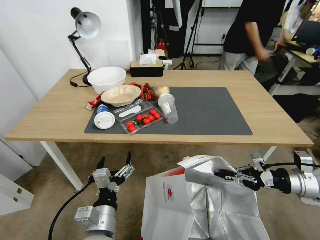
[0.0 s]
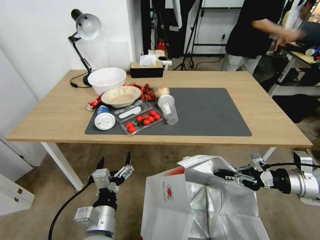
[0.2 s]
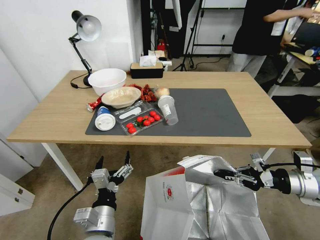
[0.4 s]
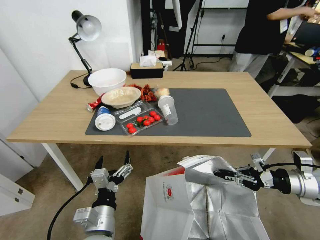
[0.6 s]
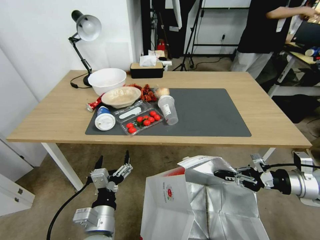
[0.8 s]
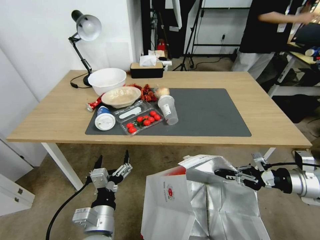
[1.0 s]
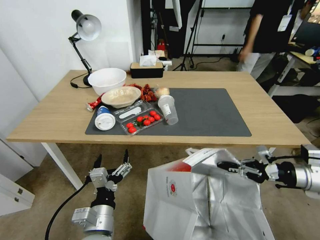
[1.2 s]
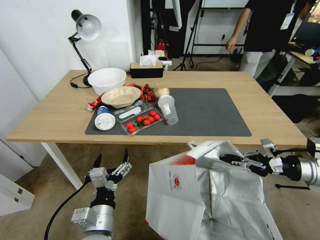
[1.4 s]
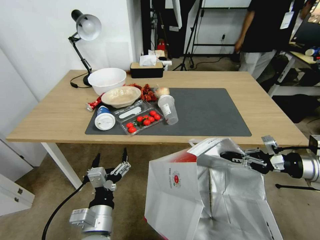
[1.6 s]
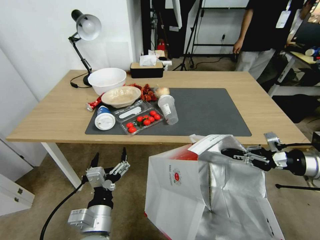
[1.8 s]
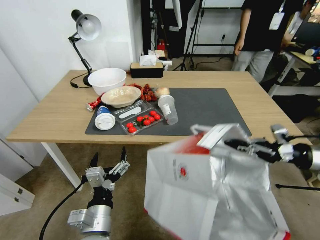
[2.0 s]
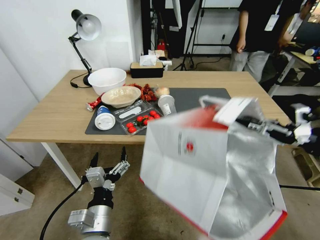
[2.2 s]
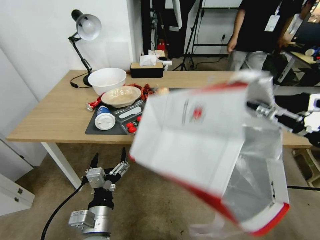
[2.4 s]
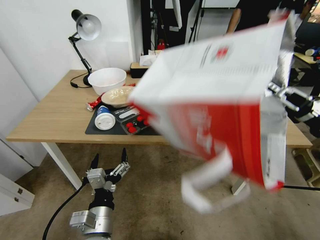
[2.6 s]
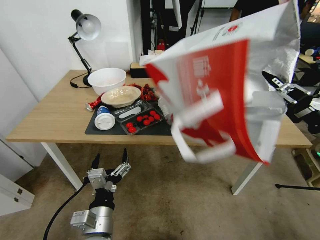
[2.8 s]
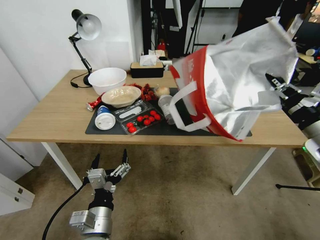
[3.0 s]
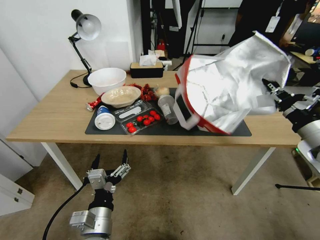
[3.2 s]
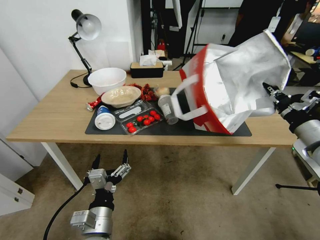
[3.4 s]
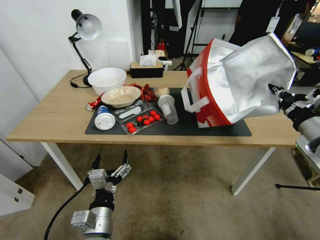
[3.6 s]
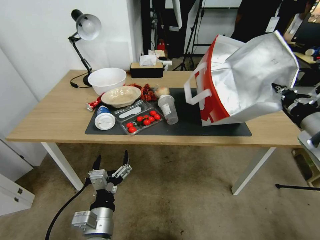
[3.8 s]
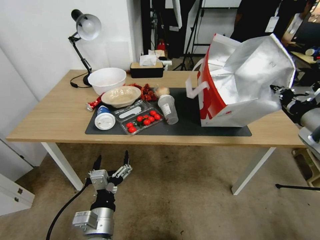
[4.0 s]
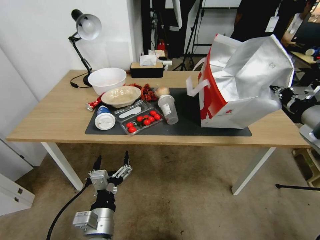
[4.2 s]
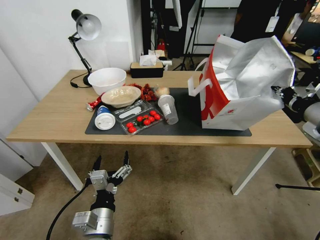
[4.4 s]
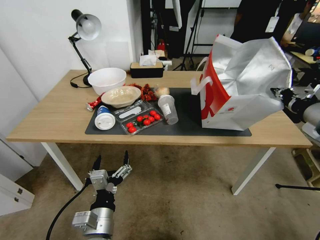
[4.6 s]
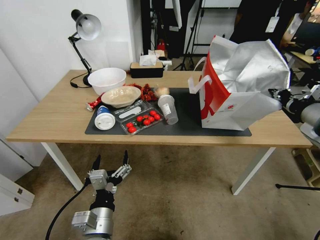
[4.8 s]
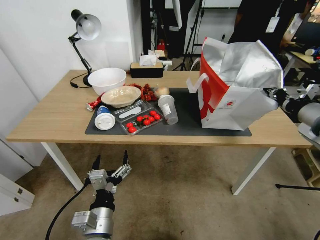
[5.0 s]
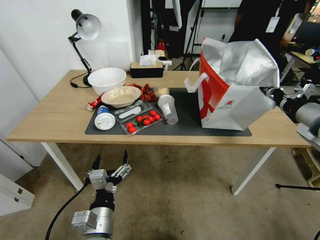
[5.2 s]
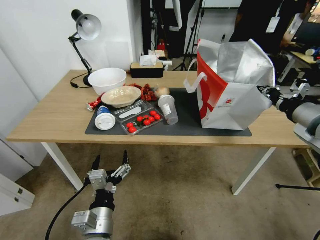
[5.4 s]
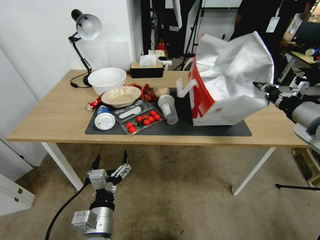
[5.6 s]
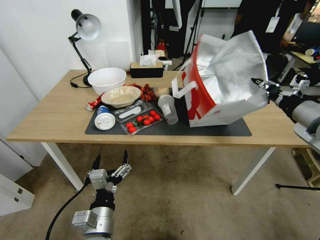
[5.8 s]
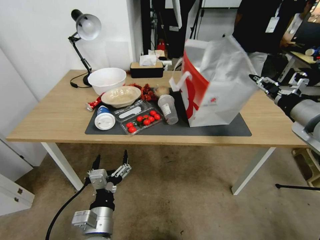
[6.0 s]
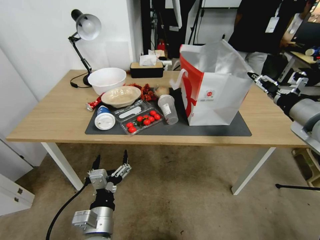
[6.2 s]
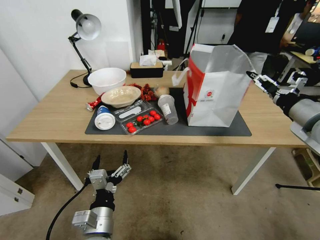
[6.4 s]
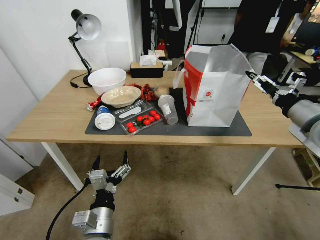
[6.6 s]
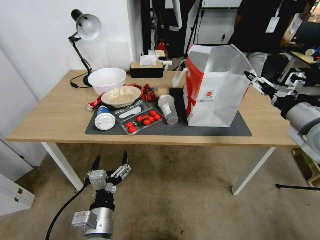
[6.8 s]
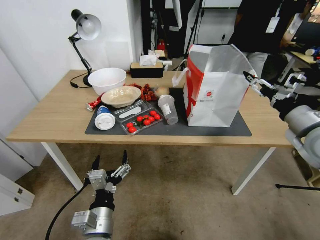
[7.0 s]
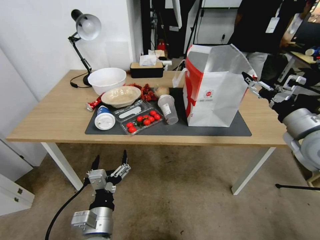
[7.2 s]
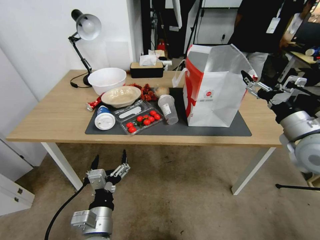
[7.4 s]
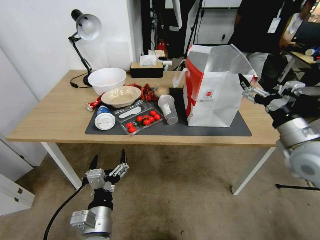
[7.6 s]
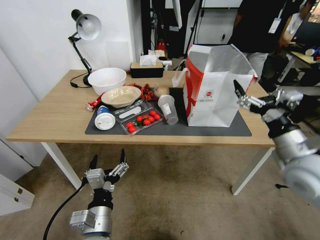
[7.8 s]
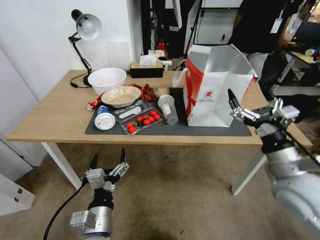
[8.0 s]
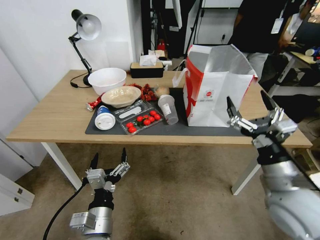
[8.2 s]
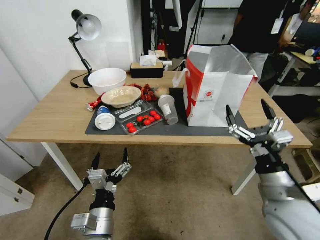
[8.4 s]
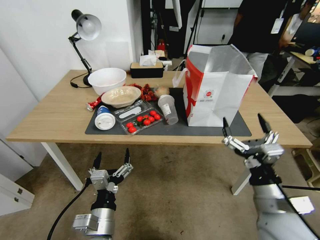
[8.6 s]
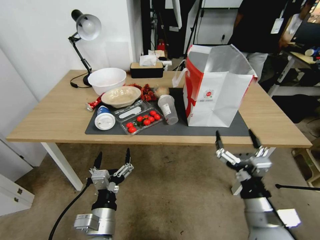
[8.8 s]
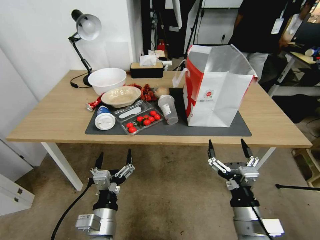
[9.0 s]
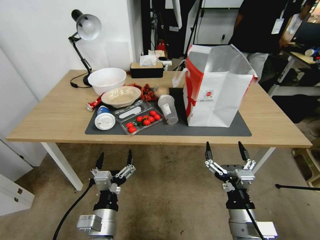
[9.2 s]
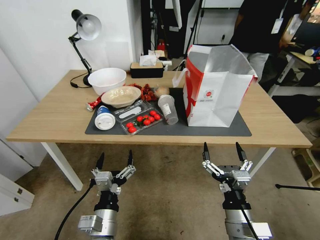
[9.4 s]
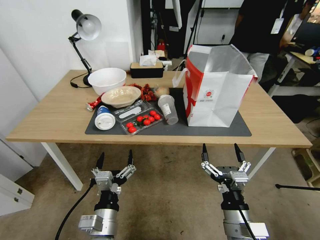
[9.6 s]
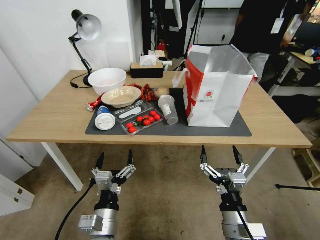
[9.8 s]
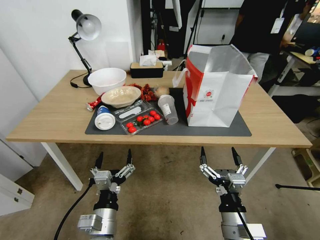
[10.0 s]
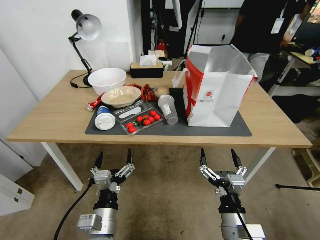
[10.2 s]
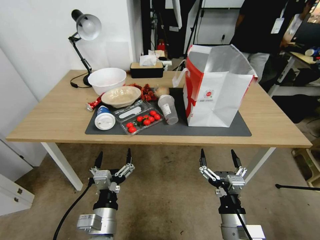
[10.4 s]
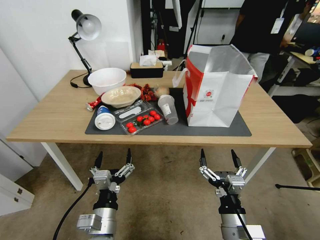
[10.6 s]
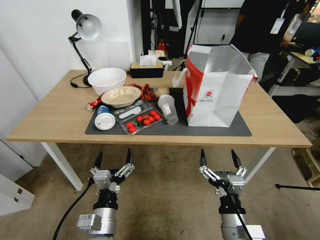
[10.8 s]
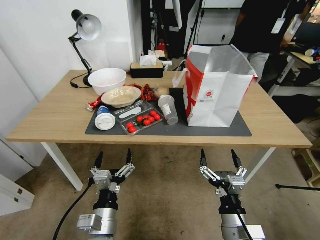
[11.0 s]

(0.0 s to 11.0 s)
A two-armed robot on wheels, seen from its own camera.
Task of the whole recording: Pick up the food delivery bag from the floor and place it on the table.
1.6 s - 3.2 s: The right gripper goes some 10 cm upward and to the left.
3.2 s - 4.8 s: The right gripper goes approximately 5 cm upward.
4.8 s - 6.2 s: The right gripper opens.
6.2 s - 7.8 s: The right gripper travels downward and backward by about 10 cm.
7.8 s - 9.4 s: The right gripper is displaced to the left, downward and backward by about 25 cm.
9.4 s - 11.0 s: The grippers move only a little.

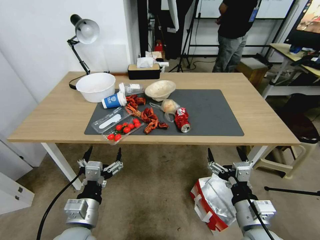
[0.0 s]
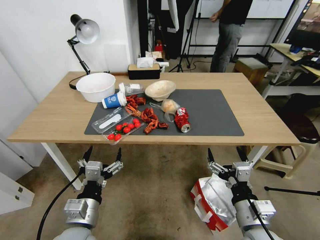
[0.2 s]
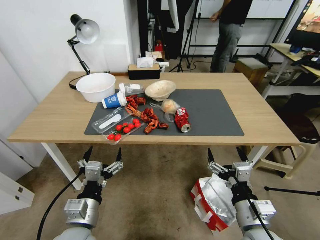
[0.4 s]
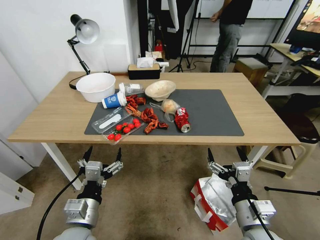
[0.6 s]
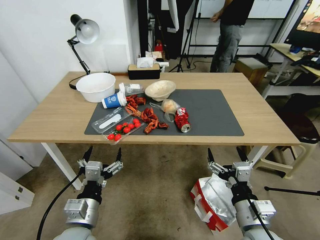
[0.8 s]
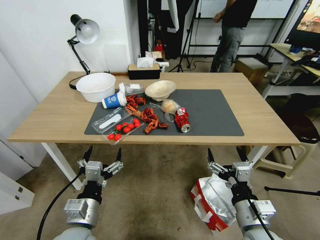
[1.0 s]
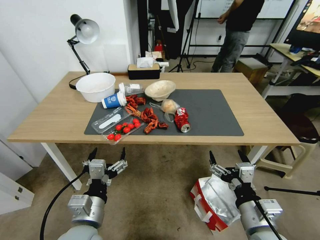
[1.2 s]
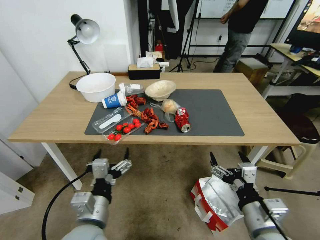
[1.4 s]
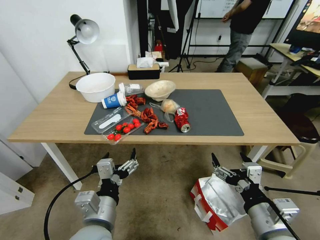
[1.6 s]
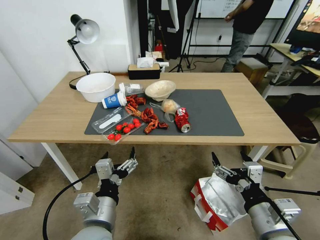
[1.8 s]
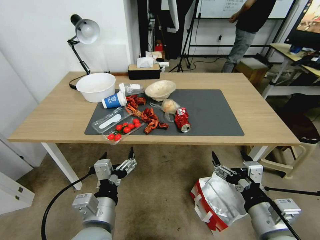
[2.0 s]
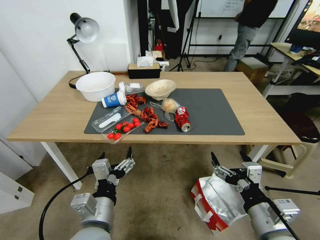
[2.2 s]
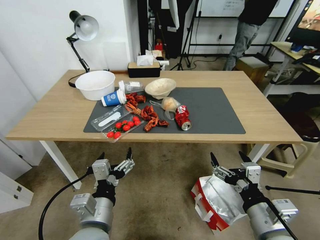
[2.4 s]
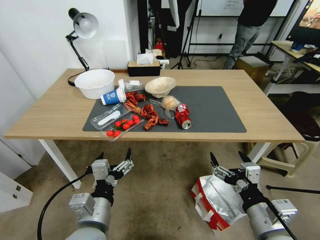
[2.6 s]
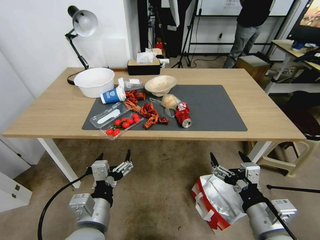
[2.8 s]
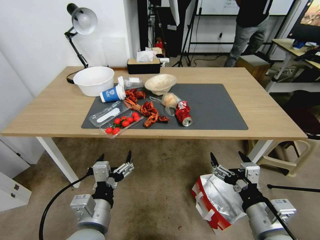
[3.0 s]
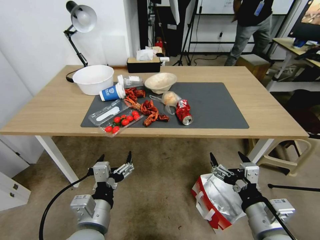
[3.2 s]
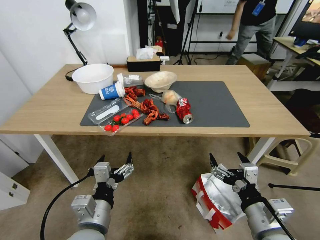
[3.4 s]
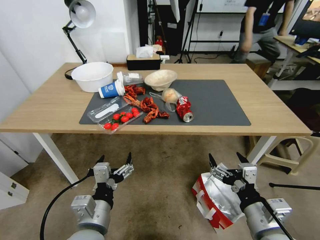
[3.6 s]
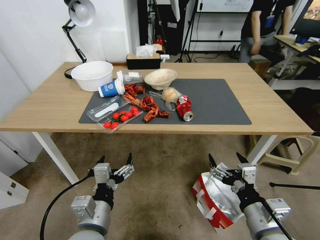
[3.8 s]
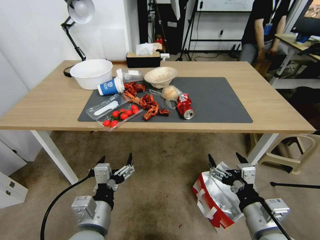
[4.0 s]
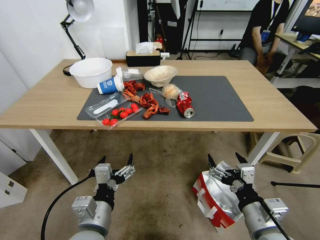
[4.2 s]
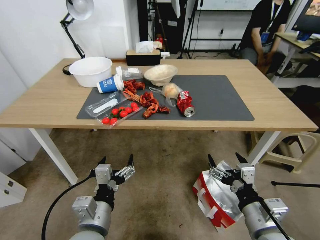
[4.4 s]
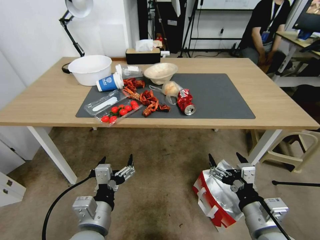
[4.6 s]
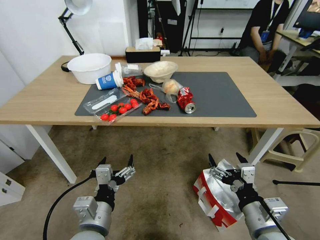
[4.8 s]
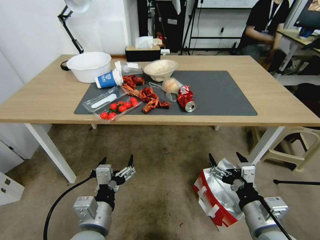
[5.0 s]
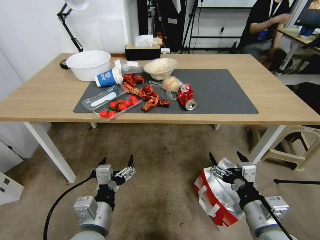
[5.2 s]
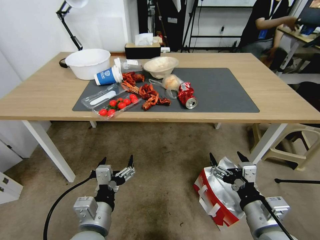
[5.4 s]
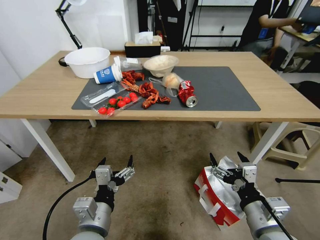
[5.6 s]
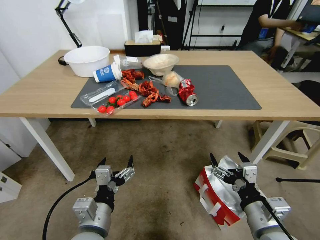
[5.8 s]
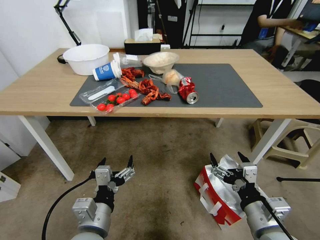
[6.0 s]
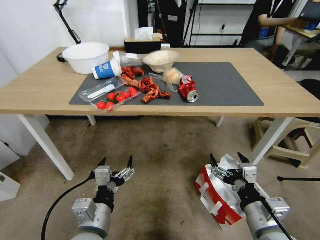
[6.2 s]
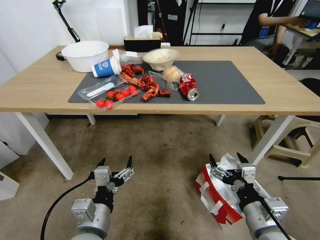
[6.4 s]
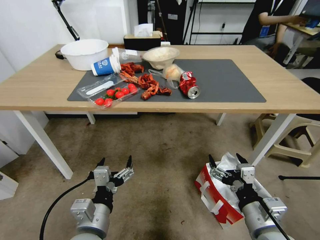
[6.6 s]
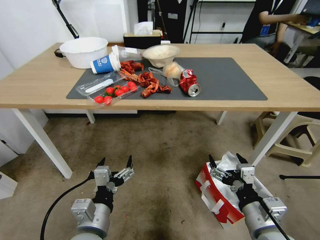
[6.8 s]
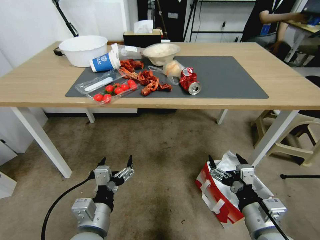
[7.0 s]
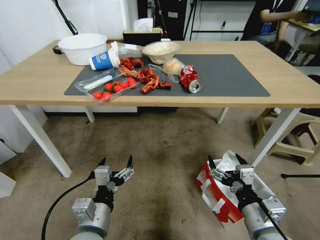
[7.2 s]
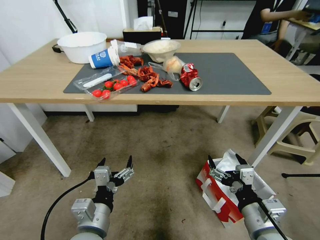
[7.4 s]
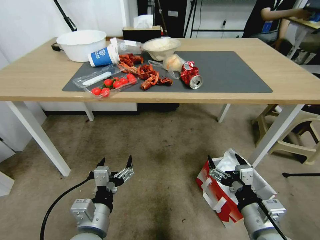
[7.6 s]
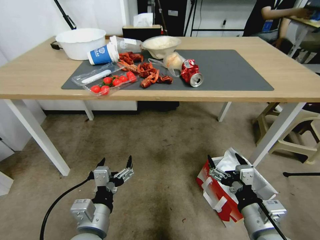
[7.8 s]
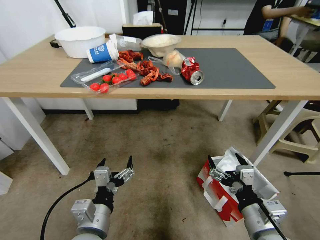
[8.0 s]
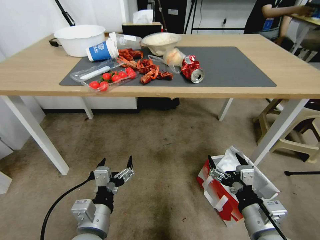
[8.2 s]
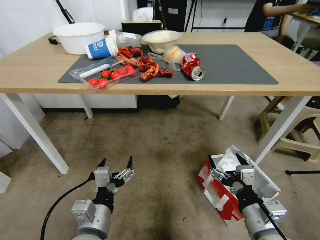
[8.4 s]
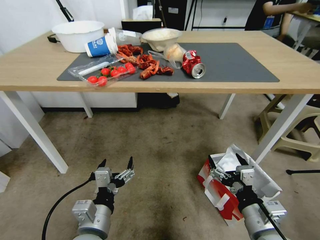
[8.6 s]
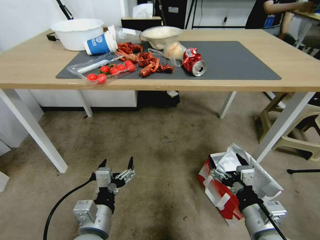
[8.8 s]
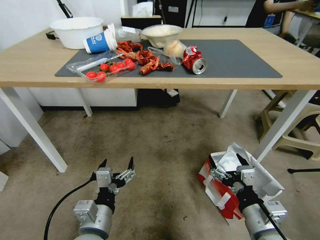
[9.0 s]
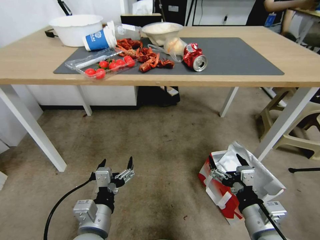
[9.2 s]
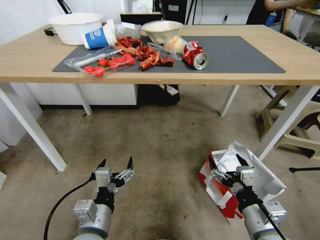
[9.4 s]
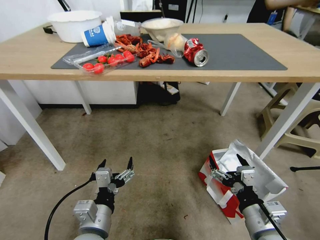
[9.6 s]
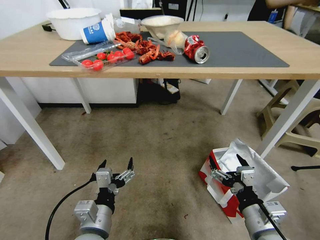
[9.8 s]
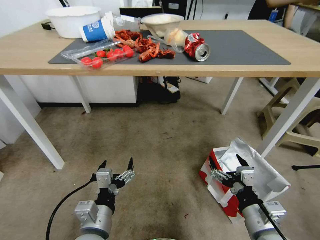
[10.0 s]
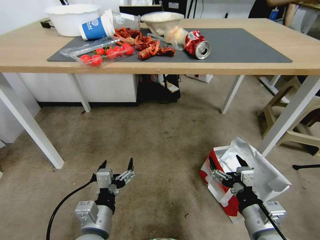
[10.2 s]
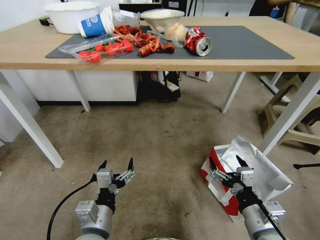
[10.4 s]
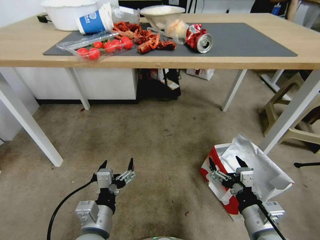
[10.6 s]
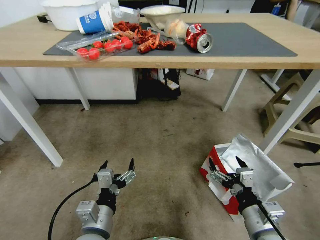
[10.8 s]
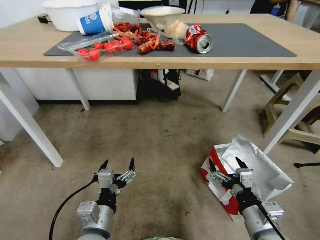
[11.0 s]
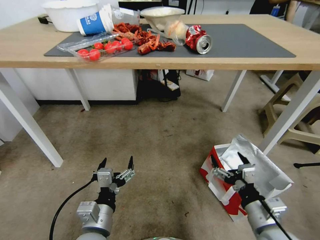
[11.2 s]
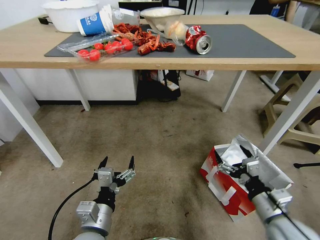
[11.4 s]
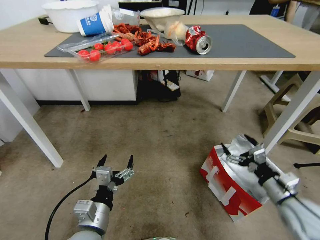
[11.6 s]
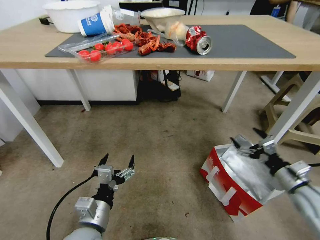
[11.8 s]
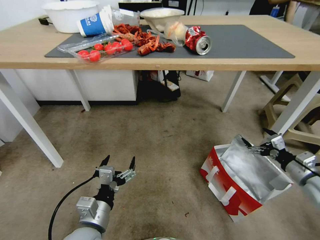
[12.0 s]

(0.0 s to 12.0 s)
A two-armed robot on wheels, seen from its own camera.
Task of the whole recording: Pick up the food delivery bag from the floor and place it on the table.
10.4 s - 12.0 s: The right gripper shifts about 25 cm to the right and forward.
